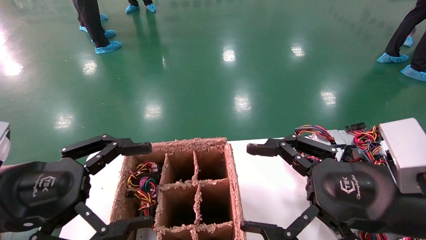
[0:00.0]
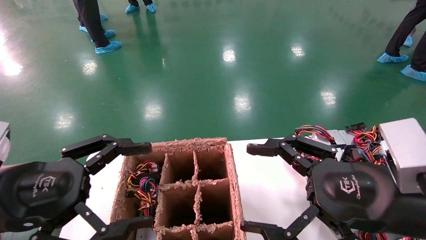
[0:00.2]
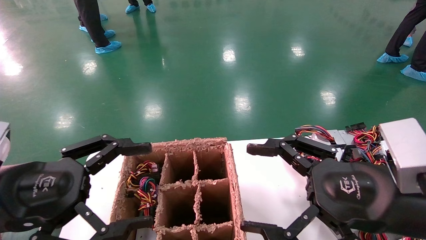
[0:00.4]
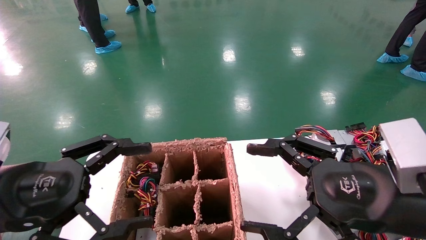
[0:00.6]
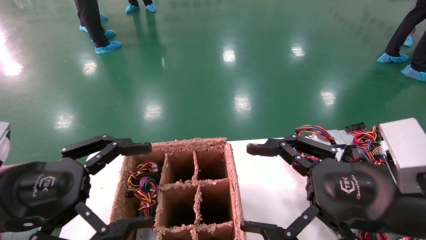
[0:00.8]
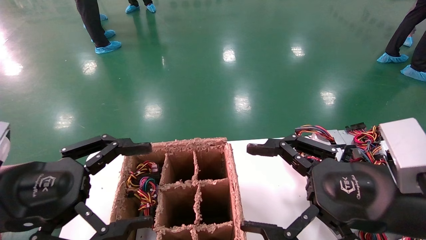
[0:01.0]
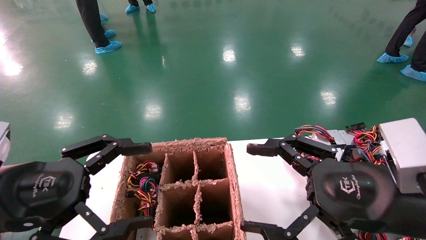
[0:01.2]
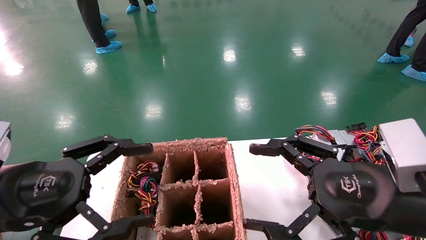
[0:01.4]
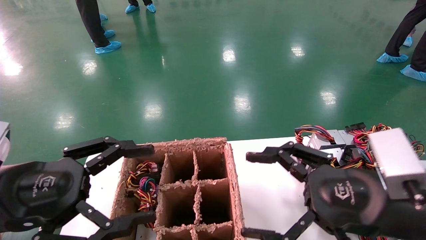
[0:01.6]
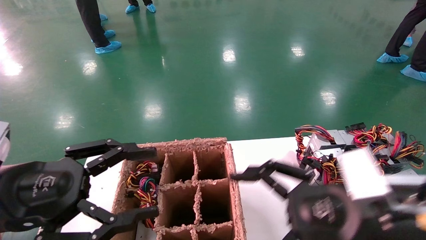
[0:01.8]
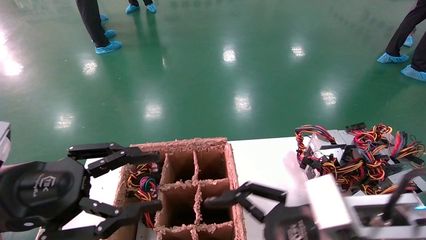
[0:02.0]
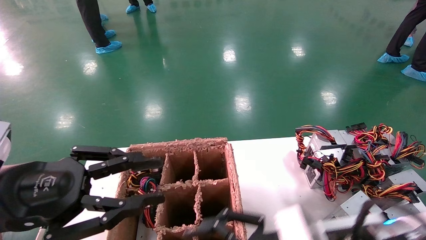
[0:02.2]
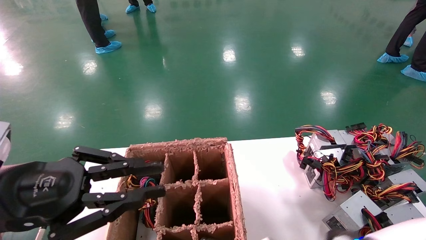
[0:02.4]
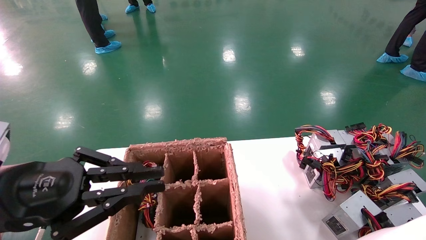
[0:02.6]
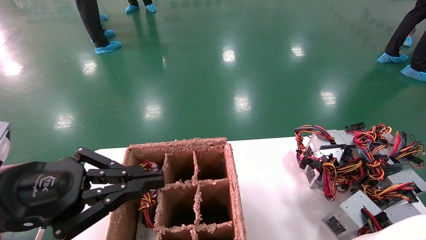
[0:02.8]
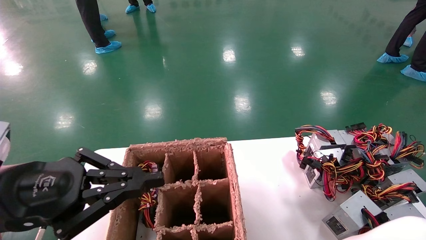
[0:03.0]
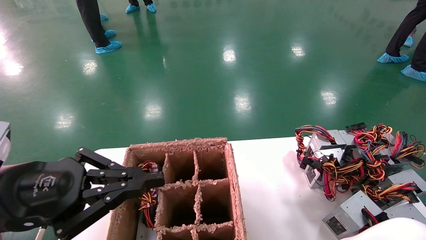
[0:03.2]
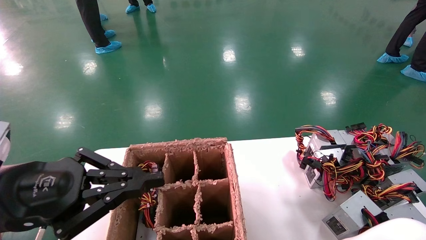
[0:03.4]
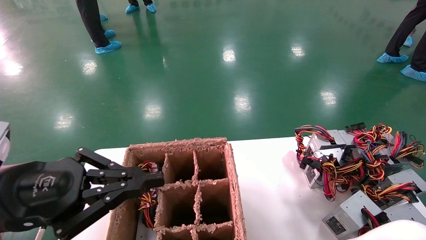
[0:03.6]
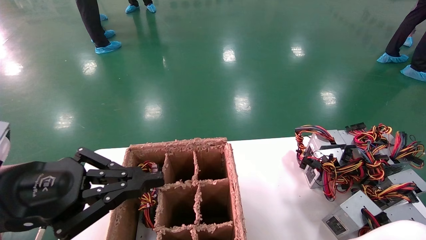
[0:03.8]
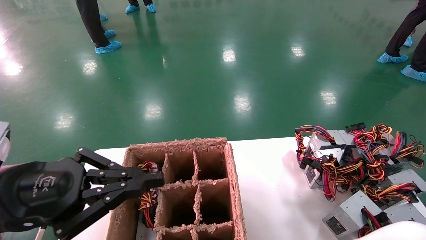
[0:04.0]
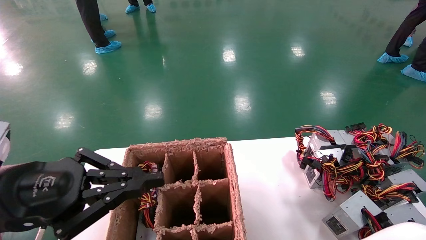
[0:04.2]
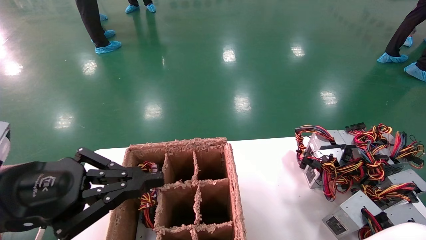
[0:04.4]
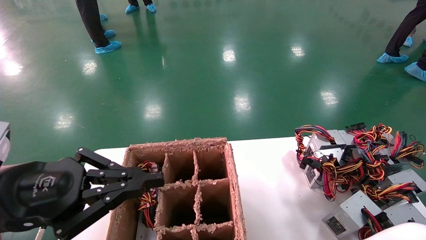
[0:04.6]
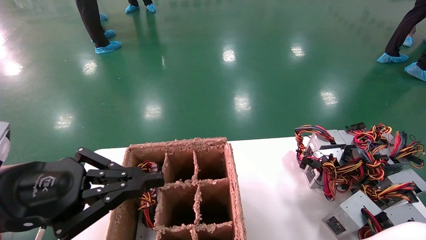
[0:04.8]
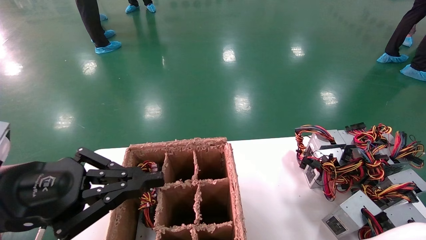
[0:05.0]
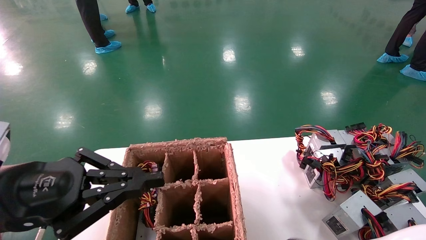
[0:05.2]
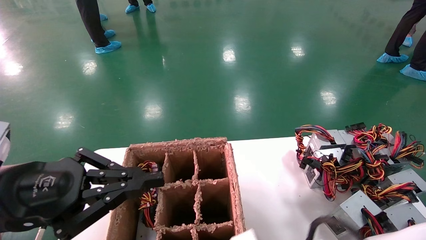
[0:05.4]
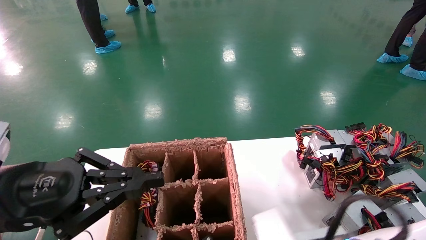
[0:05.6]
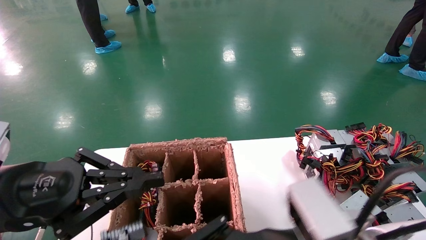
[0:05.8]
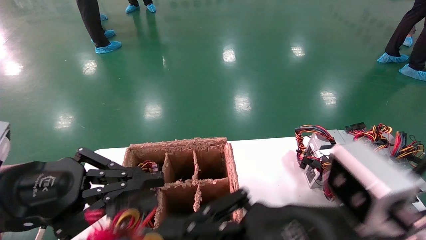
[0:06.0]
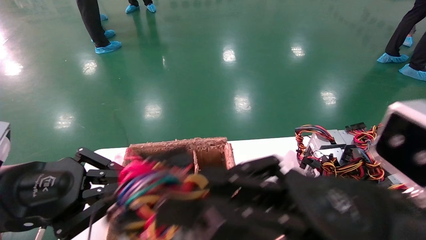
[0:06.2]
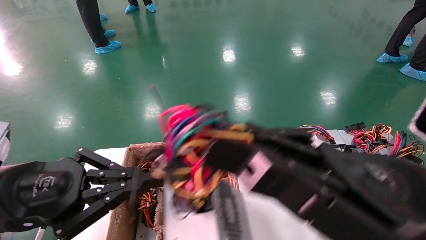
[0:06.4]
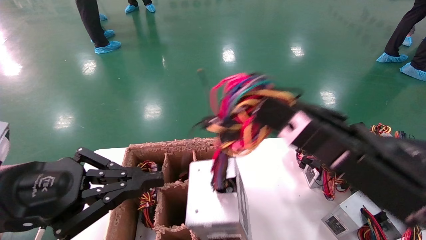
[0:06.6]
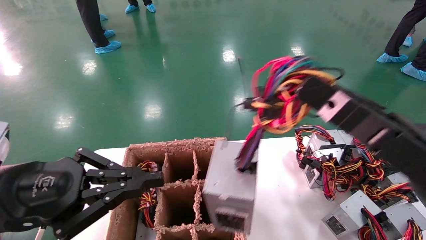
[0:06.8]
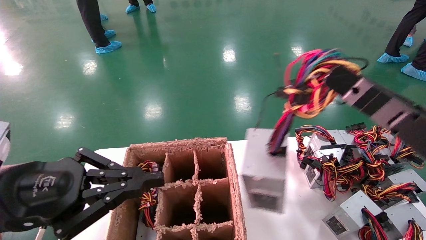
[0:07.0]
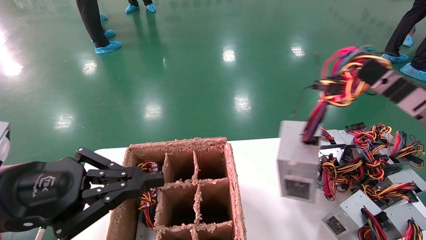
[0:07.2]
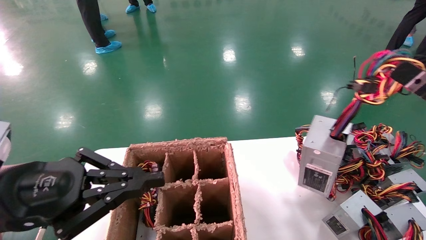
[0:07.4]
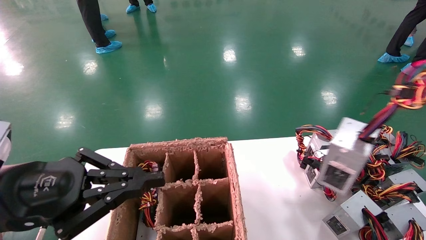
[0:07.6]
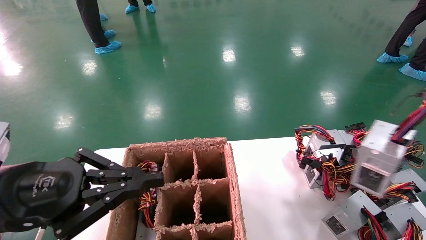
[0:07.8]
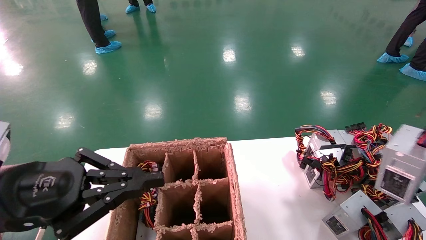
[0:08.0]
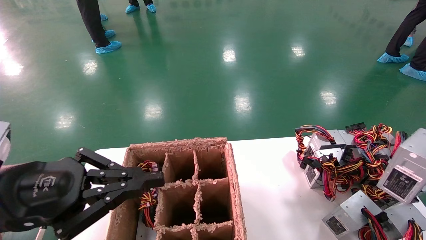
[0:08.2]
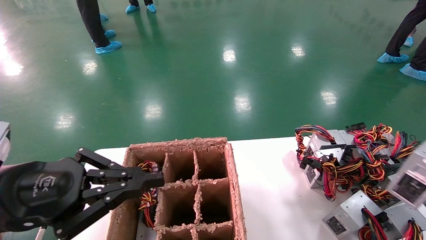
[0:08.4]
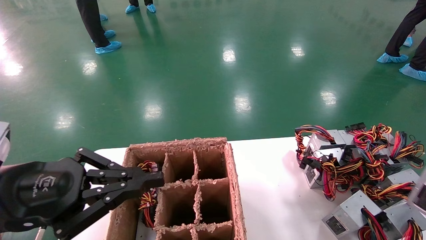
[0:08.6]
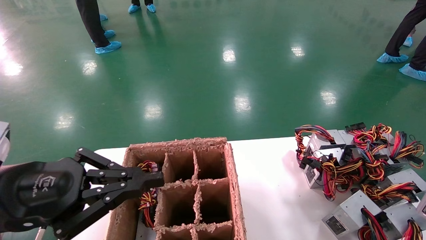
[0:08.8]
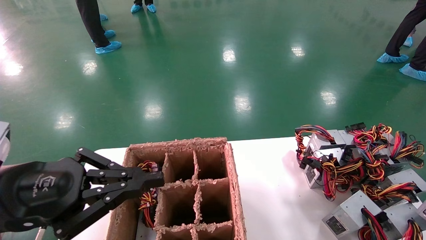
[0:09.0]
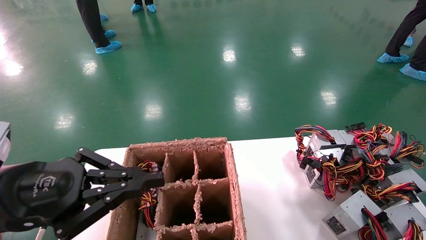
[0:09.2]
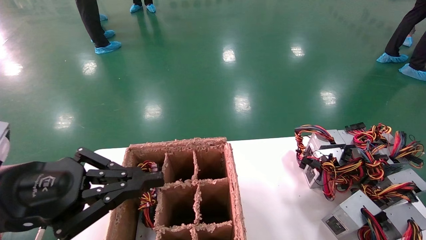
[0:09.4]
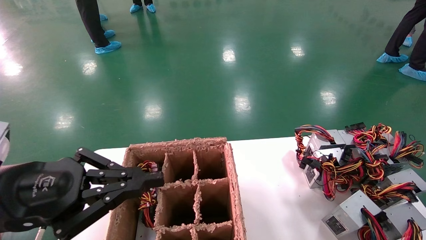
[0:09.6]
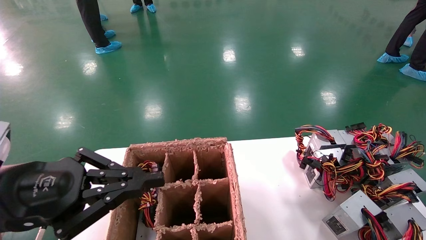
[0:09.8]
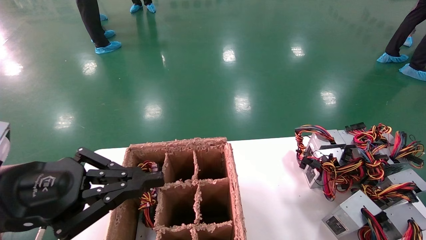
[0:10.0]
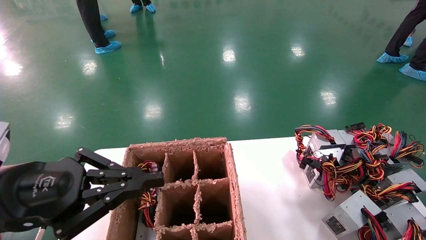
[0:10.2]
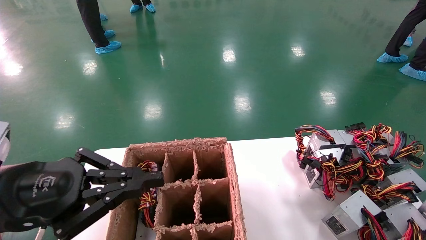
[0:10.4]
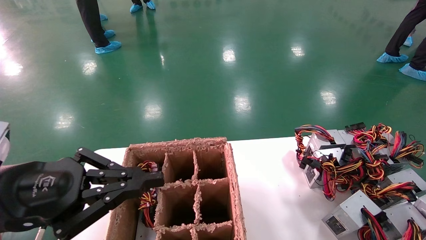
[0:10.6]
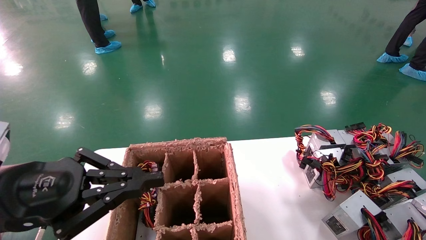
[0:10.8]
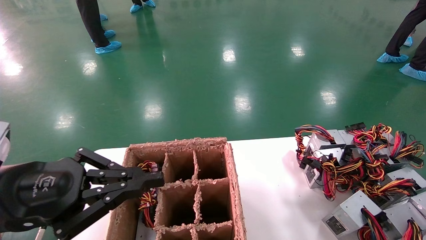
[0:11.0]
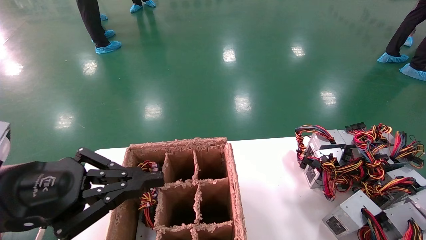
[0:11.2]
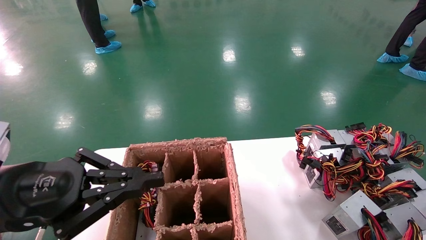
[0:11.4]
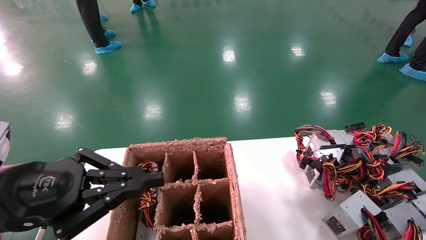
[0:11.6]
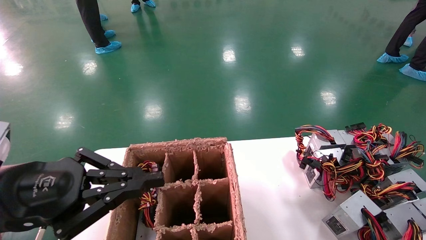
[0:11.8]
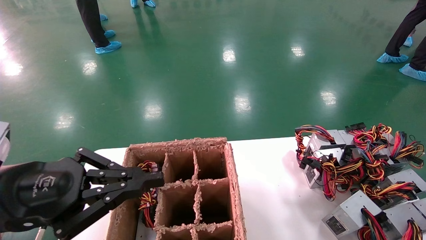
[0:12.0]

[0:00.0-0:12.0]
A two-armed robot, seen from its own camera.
Step, 0:01.4 to 0:04.4: Grab the main unit power supply from the containment box.
0:00.0 to 0:01.6: The grippers move only a little.
0:01.6 to 0:03.0: The left gripper closes its fingers. Meanwhile the right gripper moves to the left and downward, roughly 20 cm.
0:03.0 to 0:04.4: The right gripper closes its fingers.
0:04.4 to 0:06.0: The right gripper shifts approximately 15 cm upward and to the right.
0:06.0 to 0:07.6: The right gripper heads to the right, covering some 30 cm.
0:07.6 to 0:09.0: The right gripper is displaced to the right, backward and downward by some 15 cm.
0:09.0 to 0:10.4: The right gripper moves downward, about 5 cm.
0:10.4 to 0:12.0: The right gripper ends up about 5 cm from where it was.

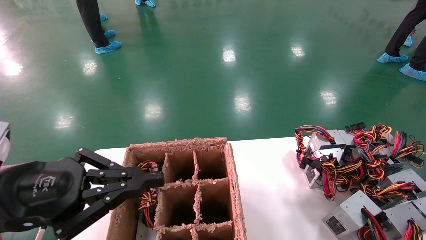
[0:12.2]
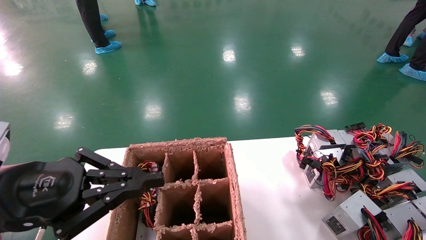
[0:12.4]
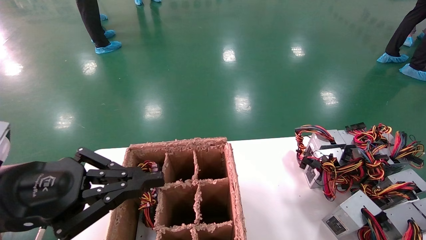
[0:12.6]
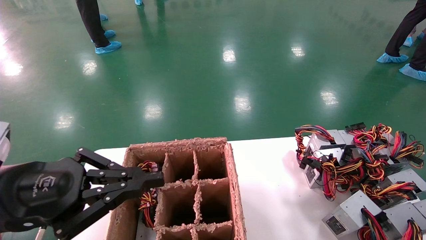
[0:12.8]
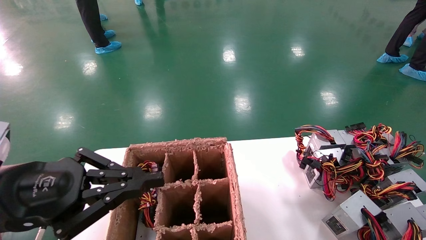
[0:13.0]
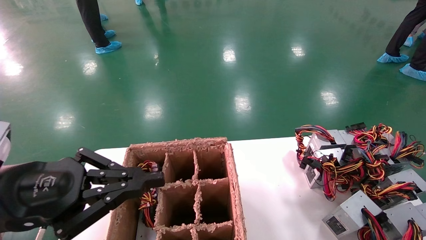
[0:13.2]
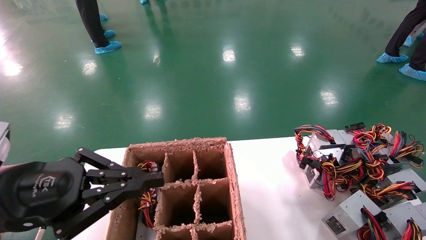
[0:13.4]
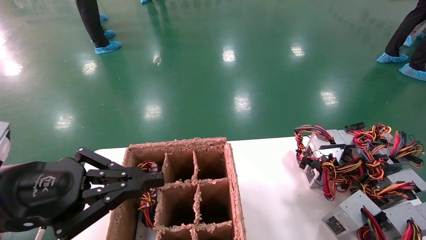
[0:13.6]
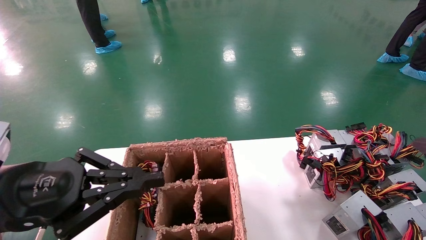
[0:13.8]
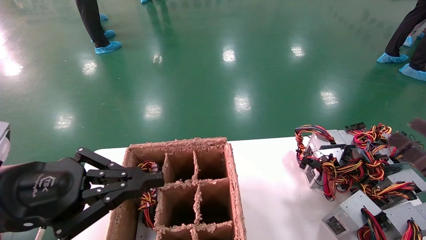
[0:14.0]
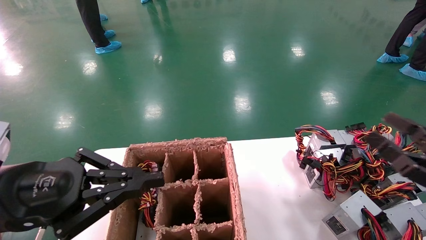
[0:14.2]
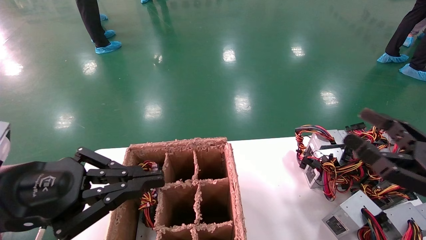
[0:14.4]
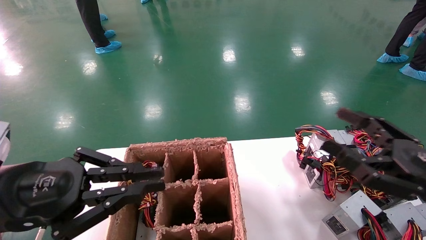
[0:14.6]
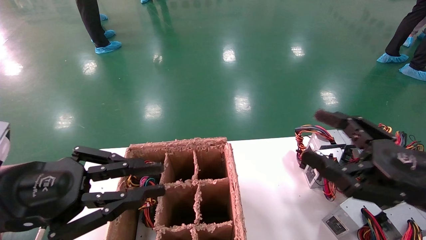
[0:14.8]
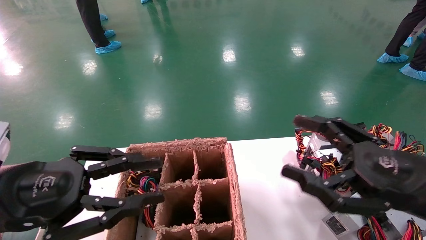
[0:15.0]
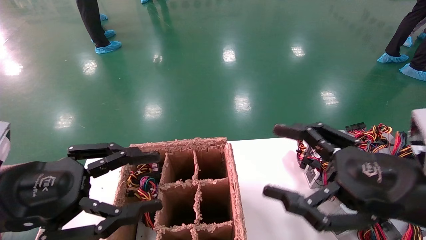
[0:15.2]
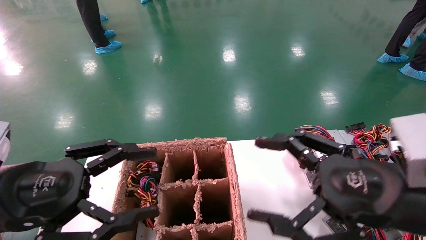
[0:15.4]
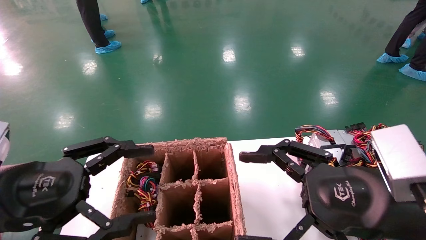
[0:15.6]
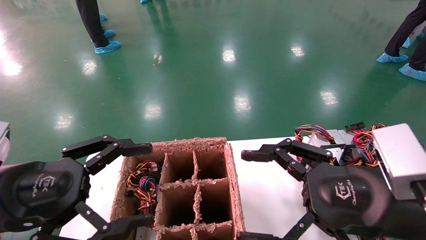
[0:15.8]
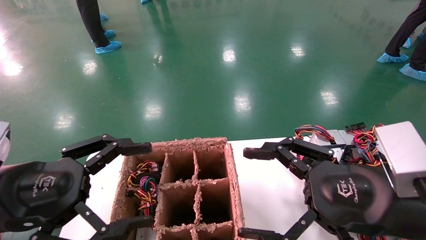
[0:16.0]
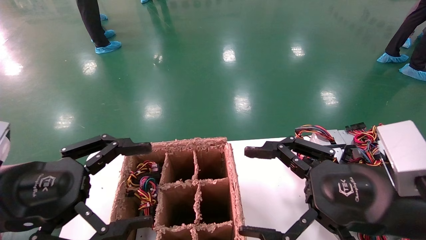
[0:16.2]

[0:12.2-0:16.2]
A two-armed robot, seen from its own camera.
0:12.2 to 0:13.6: The right gripper heads upward and to the left, covering approximately 10 cm, and opens.
0:13.6 to 0:14.8: The right gripper shifts approximately 20 cm to the left and upward.
0:14.8 to 0:16.2: The right gripper goes approximately 10 cm to the left, while the left gripper opens up.

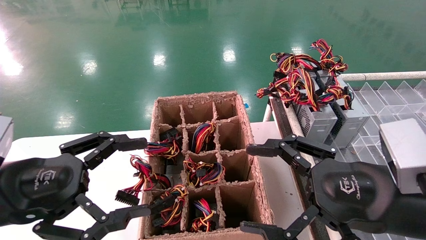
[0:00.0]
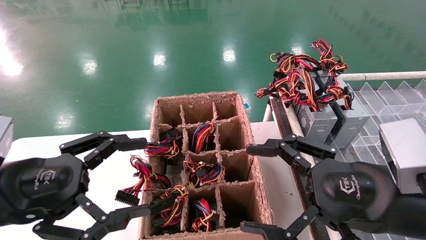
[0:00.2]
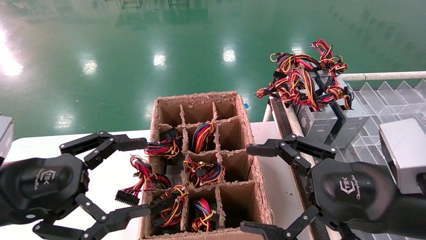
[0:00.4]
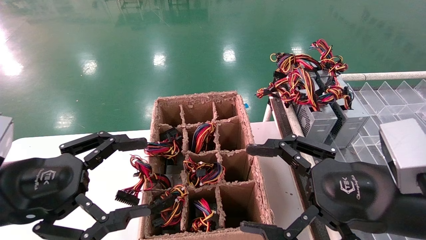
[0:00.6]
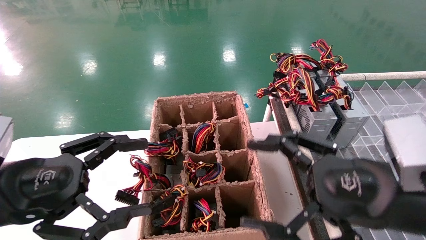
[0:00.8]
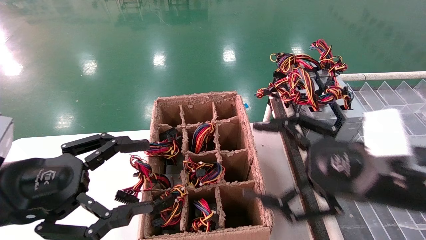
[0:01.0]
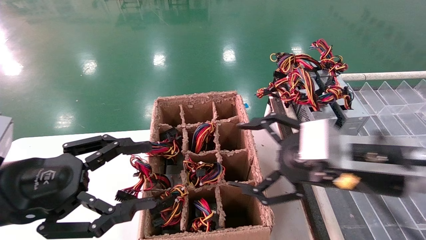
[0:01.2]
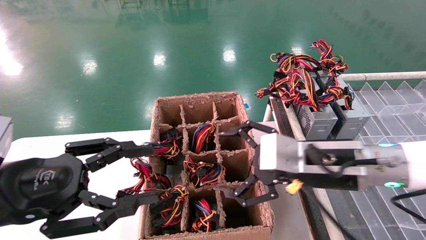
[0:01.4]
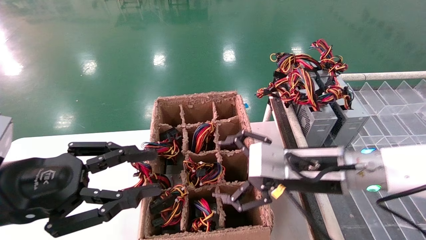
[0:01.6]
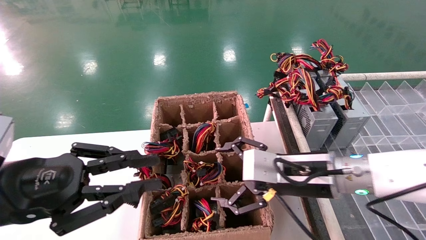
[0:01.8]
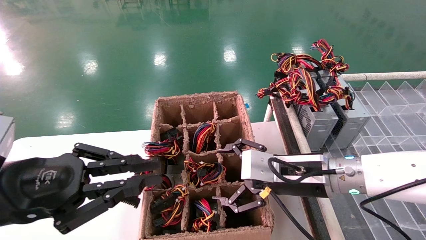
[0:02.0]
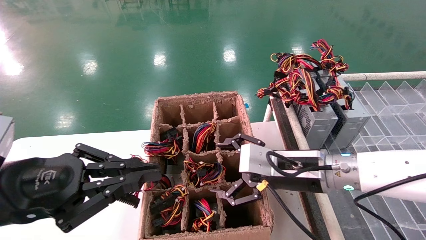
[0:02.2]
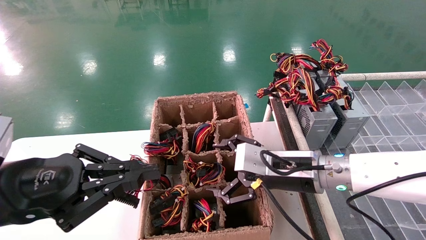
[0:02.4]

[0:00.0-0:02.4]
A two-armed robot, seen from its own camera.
0:00.0 to 0:01.2: The right gripper heads forward, covering about 5 cm.
0:01.2 to 0:02.4: The right gripper goes roughly 10 cm forward and downward. Meanwhile the left gripper closes its fingers.
